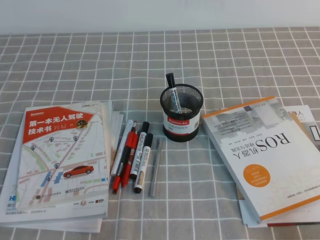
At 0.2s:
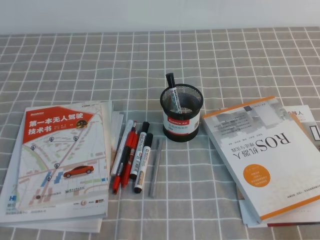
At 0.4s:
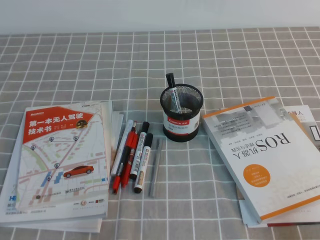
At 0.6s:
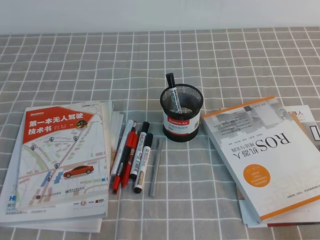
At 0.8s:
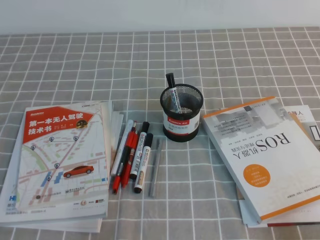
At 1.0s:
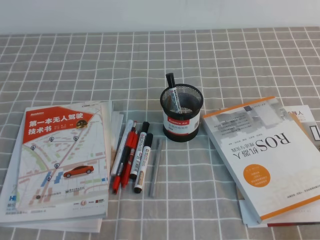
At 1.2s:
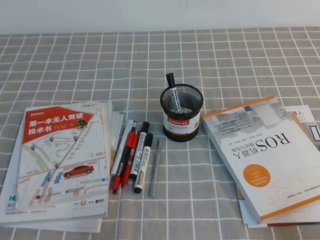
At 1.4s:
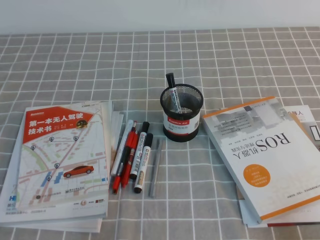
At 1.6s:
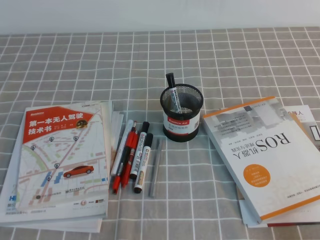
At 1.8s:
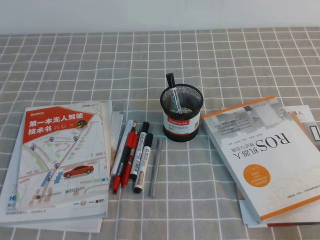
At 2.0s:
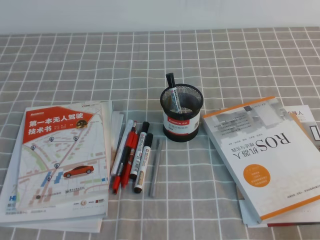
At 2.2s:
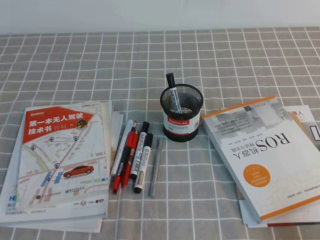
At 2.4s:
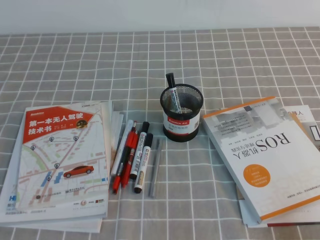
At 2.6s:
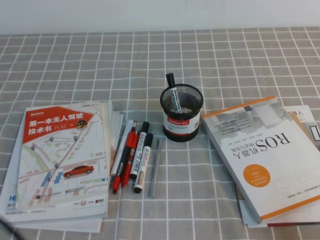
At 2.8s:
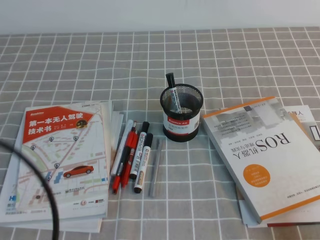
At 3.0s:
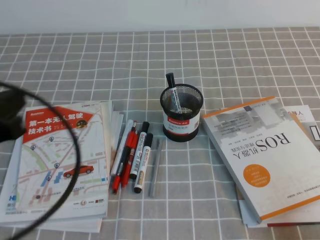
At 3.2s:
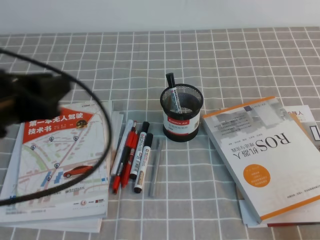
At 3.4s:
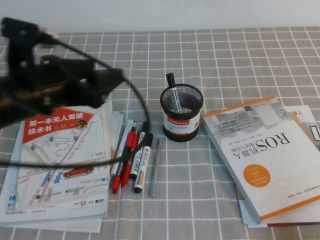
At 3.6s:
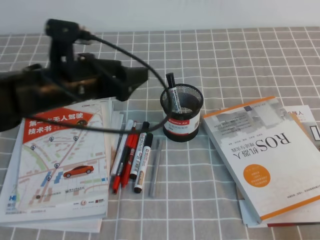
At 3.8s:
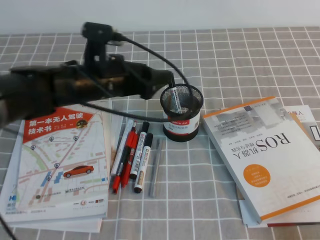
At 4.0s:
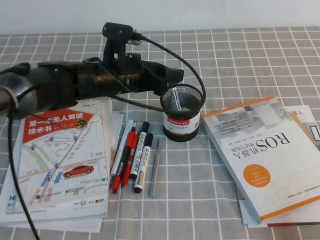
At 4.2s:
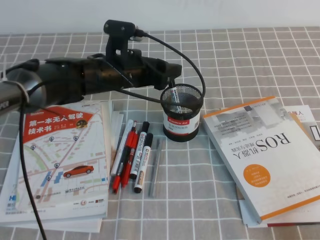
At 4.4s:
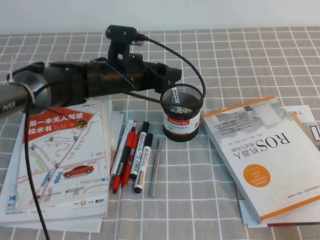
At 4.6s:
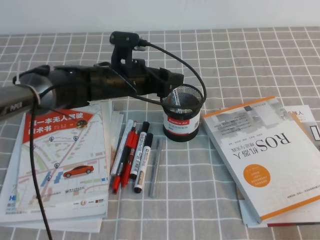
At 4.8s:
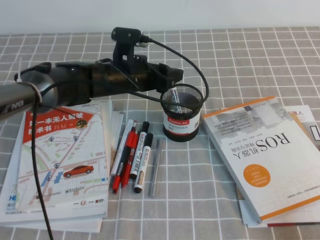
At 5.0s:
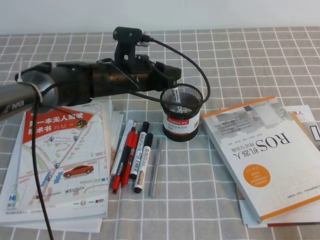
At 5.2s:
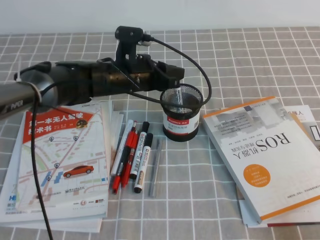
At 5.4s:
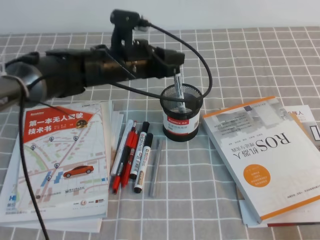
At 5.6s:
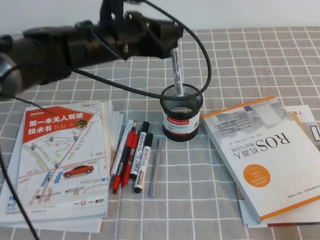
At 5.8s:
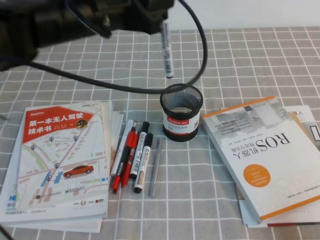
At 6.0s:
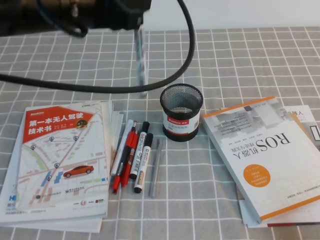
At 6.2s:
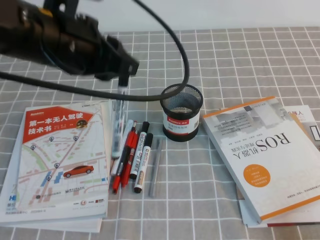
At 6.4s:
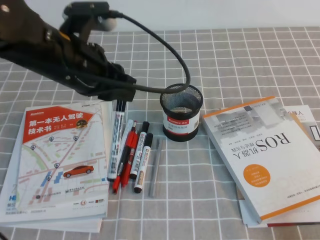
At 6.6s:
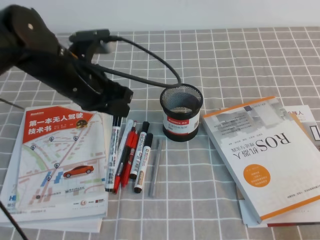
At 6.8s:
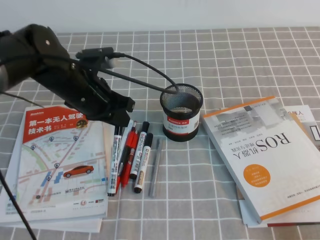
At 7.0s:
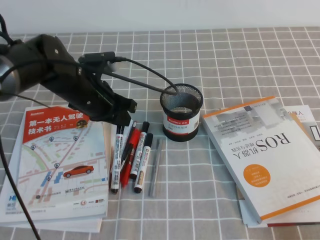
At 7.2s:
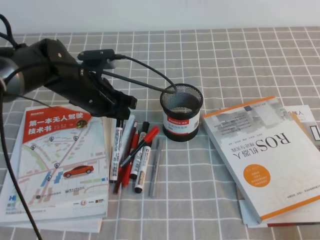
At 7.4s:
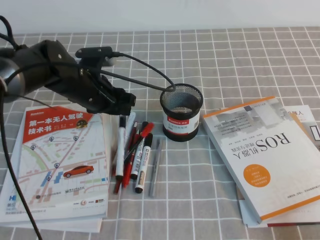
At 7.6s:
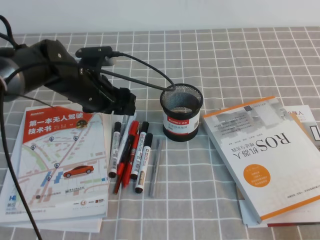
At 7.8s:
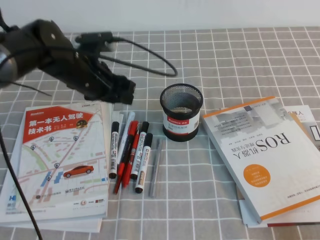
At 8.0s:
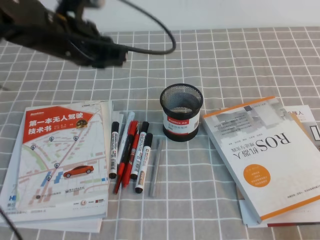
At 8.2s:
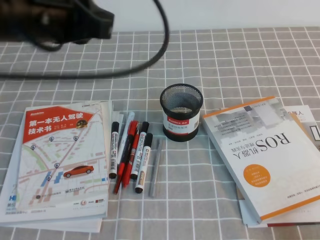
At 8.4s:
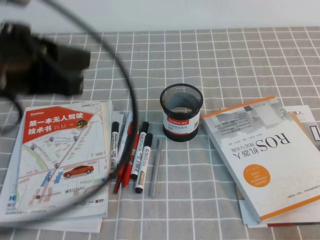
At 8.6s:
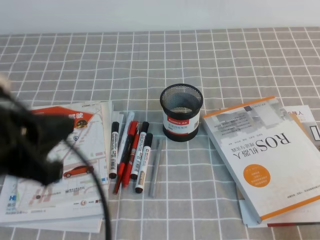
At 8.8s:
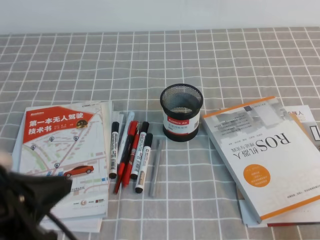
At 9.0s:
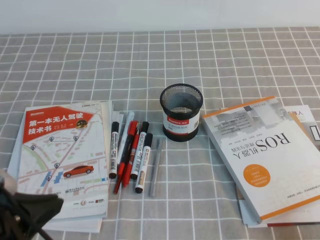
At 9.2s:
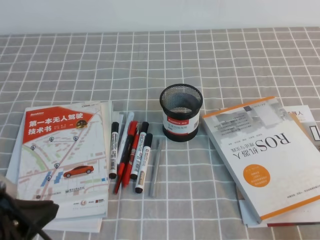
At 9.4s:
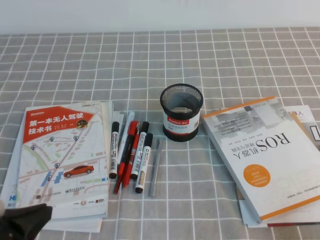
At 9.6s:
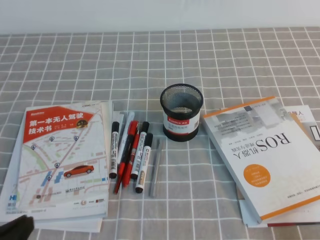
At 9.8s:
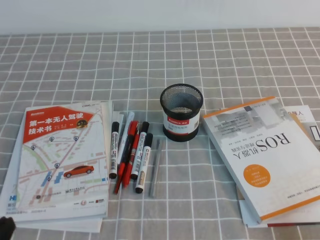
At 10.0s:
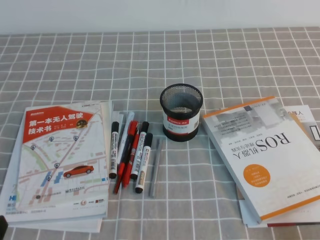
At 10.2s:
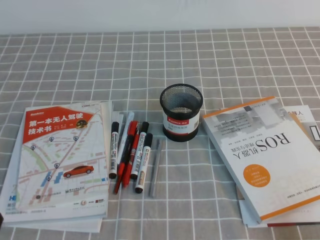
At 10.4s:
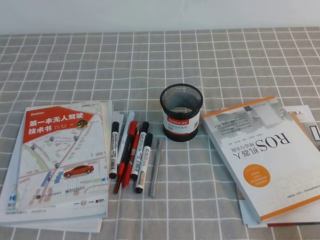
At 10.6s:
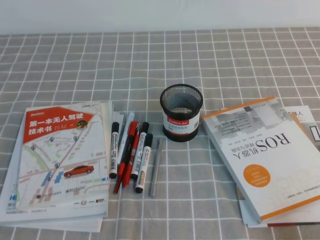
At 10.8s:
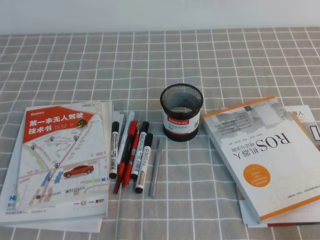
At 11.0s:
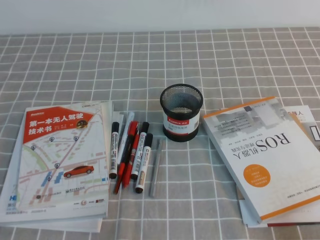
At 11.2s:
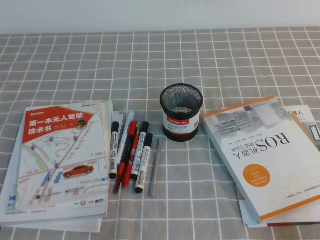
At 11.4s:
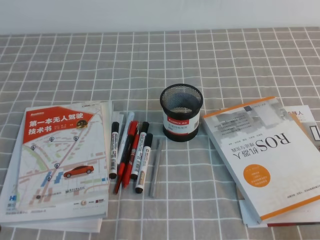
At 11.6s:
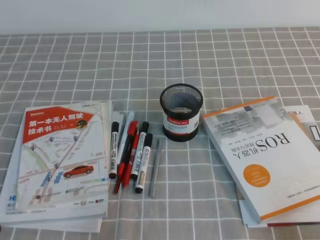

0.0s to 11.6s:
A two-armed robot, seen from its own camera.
Step, 0.0s to 11.6s: Pick up the pen from the pen holder.
0.0s to 1.4s: Both grippers stay about where they are.
1.4s to 2.8s: The left gripper travels upward by some 15 cm.
2.8s to 4.4s: The left gripper is displaced forward and to the right by approximately 35 cm, and opens.
4.4s to 5.8s: The left gripper goes approximately 15 cm upward and backward, and closes its fingers.
5.8s to 7.2s: The left gripper moves downward, about 15 cm.
7.2s to 8.8s: The left gripper is displaced backward by approximately 25 cm, and opens, then closes again.
8.8s to 10.2s: The left gripper moves downward, backward and to the left, about 15 cm.
